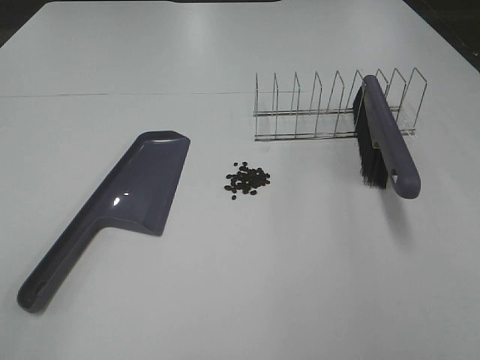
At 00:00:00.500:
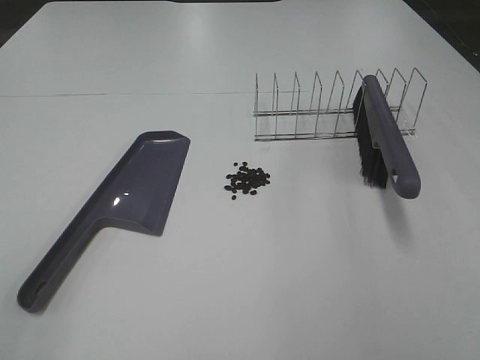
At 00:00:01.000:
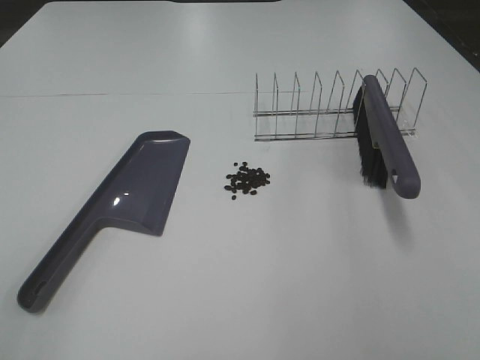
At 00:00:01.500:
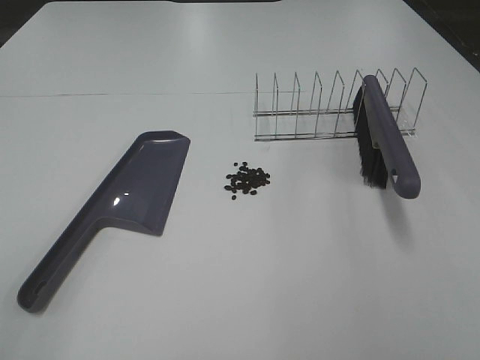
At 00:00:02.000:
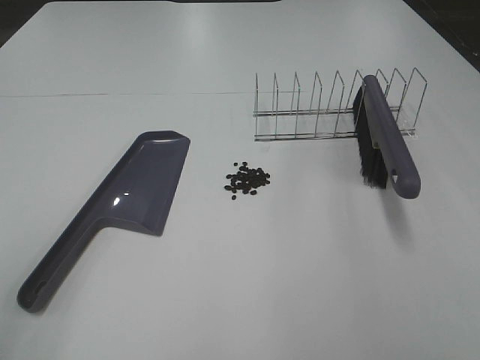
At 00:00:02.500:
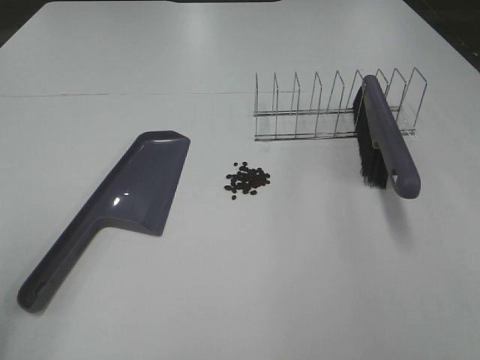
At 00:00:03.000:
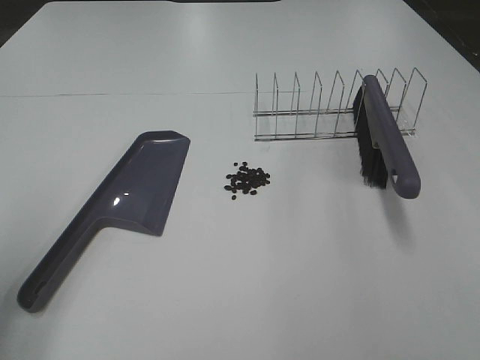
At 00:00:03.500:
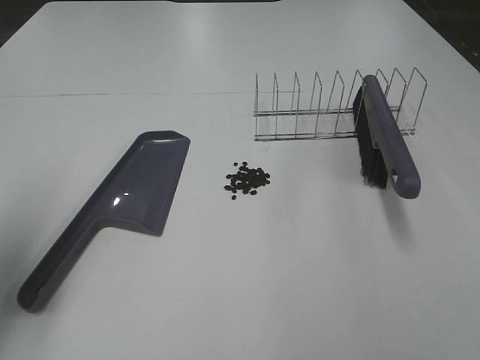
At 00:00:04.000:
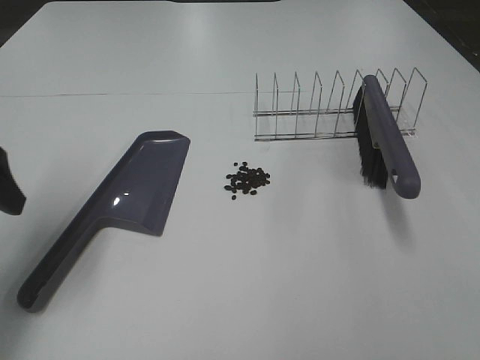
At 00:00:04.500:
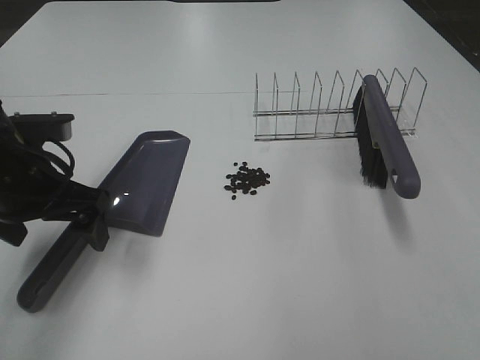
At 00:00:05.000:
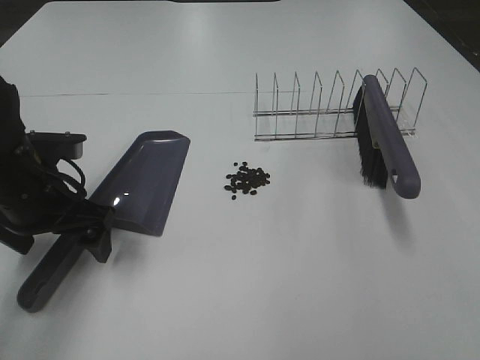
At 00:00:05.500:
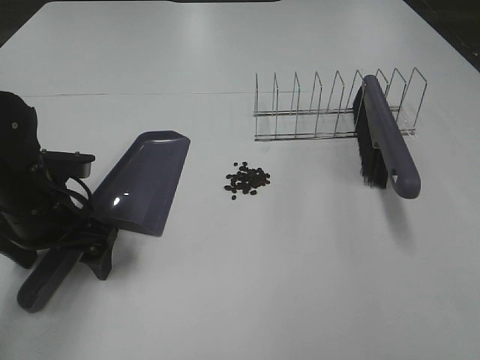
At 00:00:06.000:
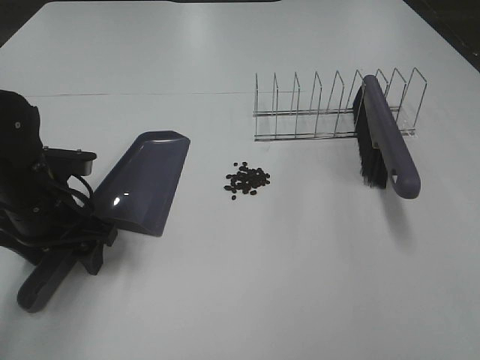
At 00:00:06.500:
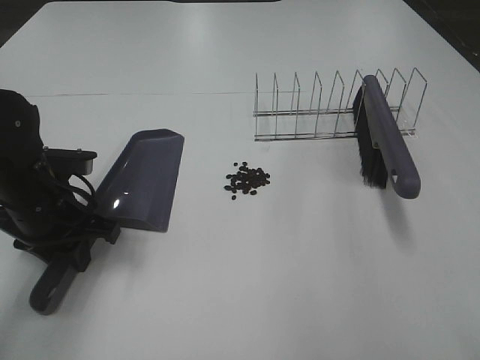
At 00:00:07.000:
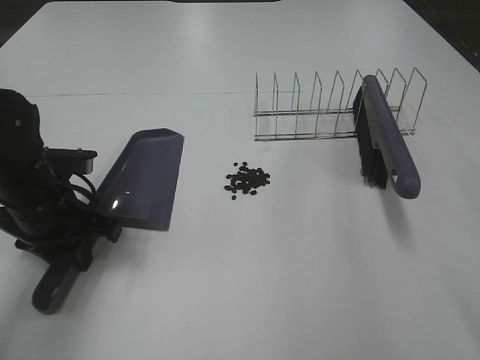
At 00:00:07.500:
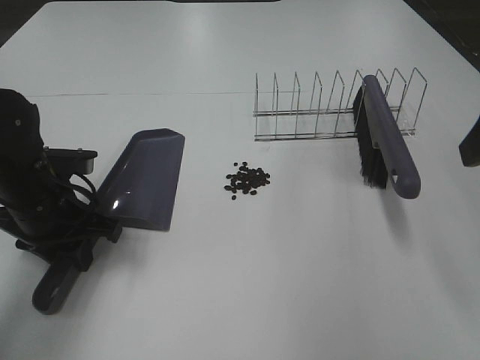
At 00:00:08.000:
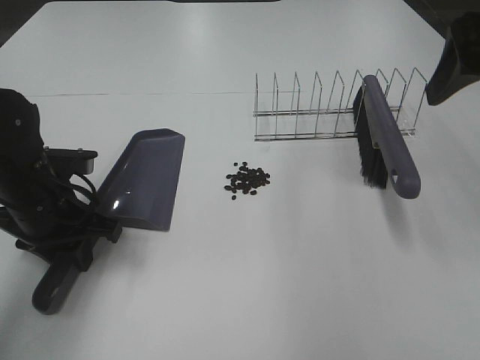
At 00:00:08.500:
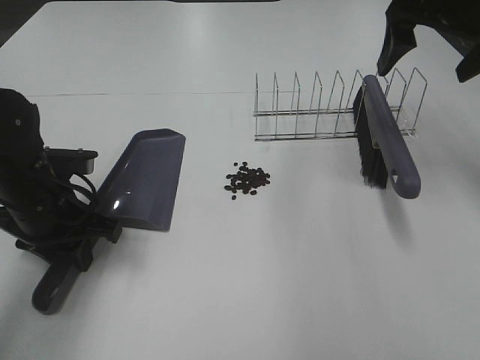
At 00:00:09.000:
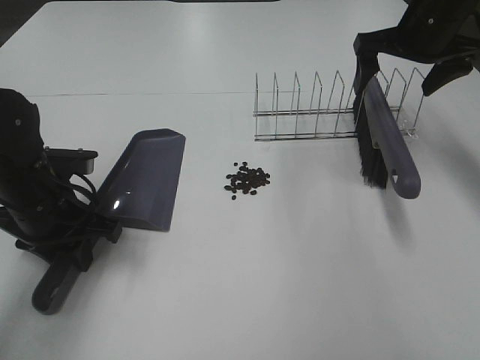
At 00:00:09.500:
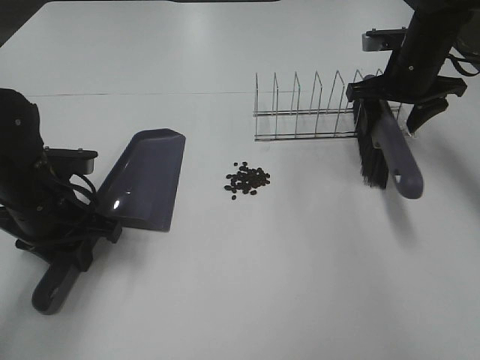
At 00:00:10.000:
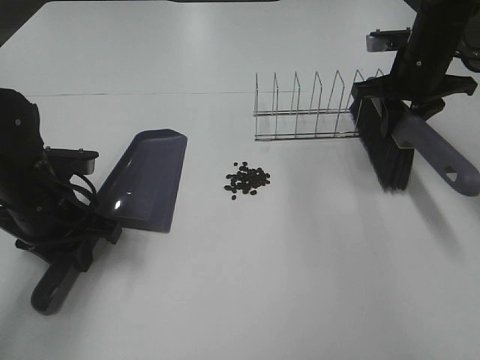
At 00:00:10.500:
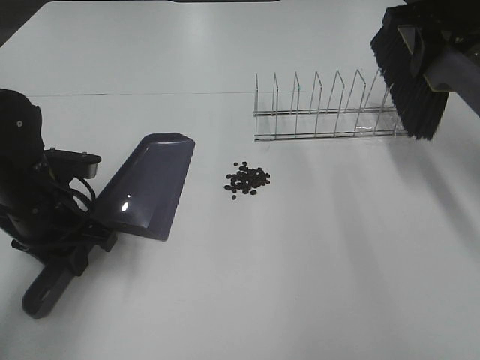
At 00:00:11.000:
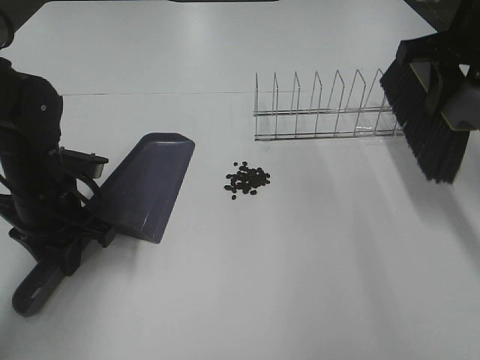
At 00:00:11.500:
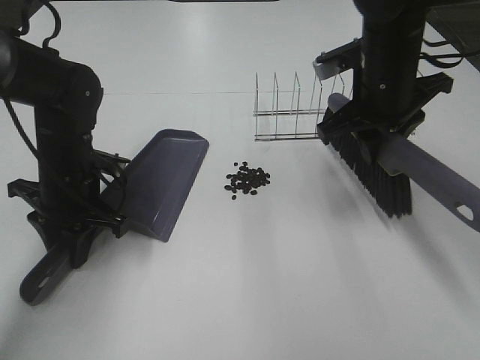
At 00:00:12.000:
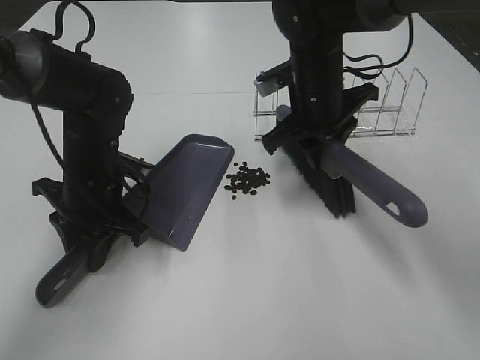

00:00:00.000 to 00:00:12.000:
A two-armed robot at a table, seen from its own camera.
Task of the whole recording: Sweep Coffee Bean.
Step, 00:00:00.000 to 00:00:06.500: Left hand: grab the dustpan.
Step, 00:00:06.500 to 00:00:09.500: Right hand:grab the broom.
00:00:02.000 to 00:00:04.000: The left gripper shifts some 20 cm forward.
00:00:04.000 to 00:00:06.000: The left gripper is displaced downward and to the right by roughly 15 cm, and closes up.
00:00:06.000 to 00:00:08.000: The right gripper goes approximately 25 cm forward. The left gripper closes its fingers.
00:00:08.000 to 00:00:10.000: The right gripper is displaced forward and downward by roughly 20 cm, and closes.
00:00:10.000 to 00:00:12.000: The left gripper moves to the right, some 5 cm. The right gripper is displaced to the left by approximately 15 cm.

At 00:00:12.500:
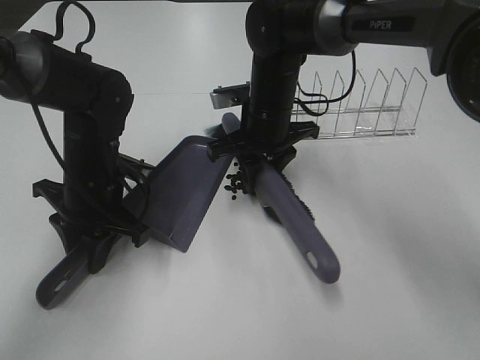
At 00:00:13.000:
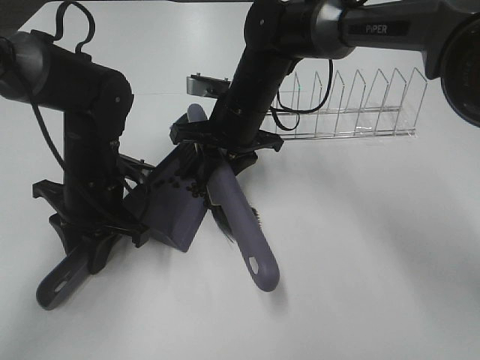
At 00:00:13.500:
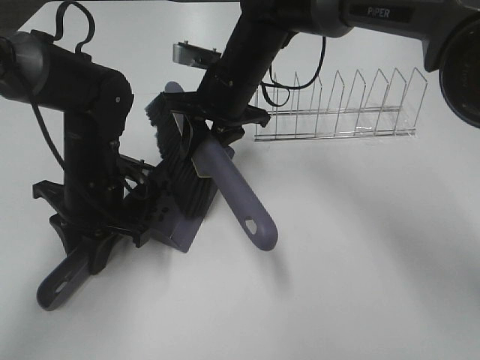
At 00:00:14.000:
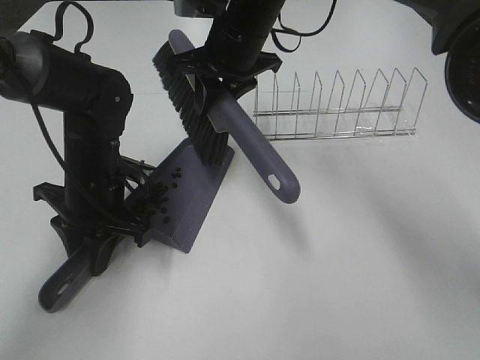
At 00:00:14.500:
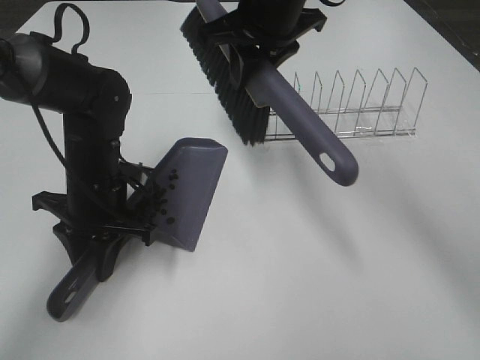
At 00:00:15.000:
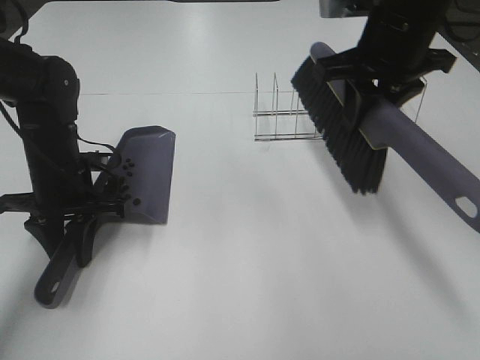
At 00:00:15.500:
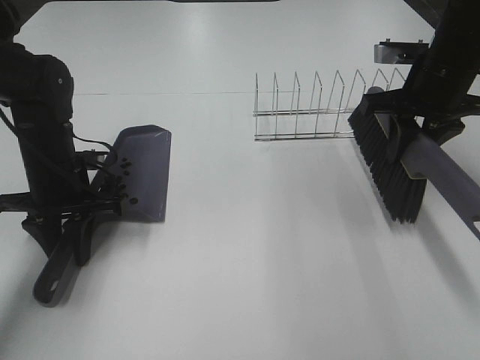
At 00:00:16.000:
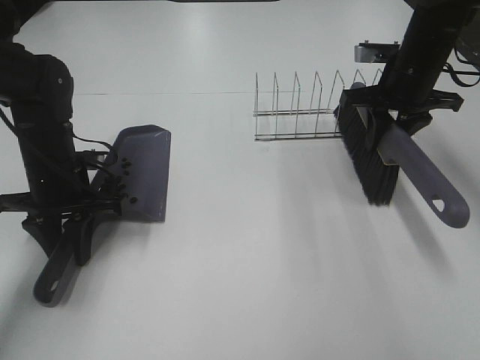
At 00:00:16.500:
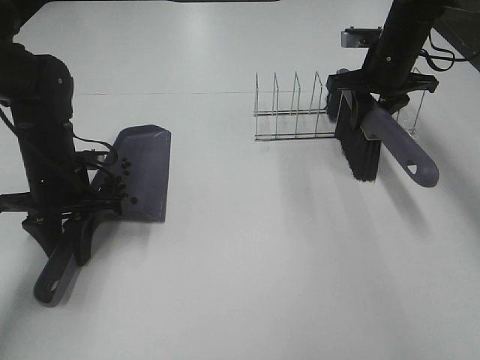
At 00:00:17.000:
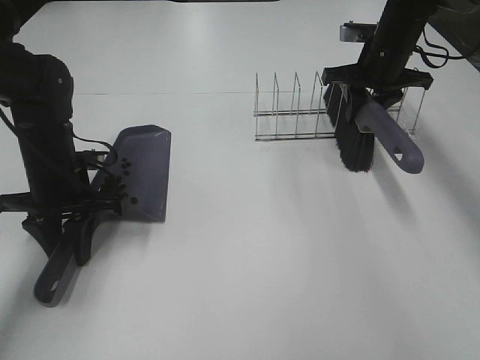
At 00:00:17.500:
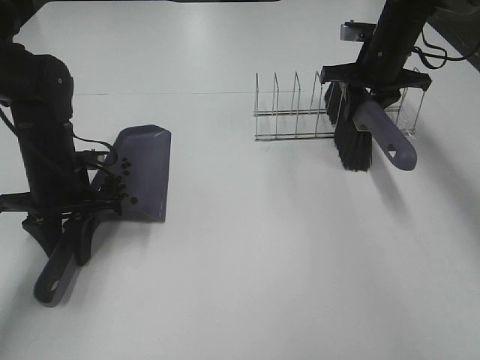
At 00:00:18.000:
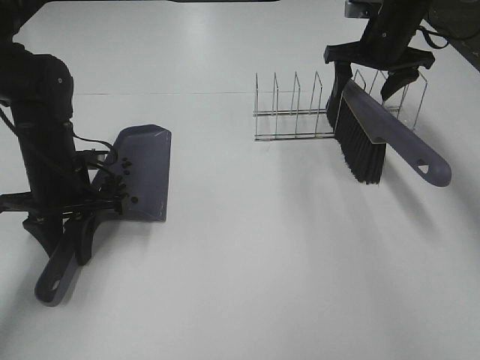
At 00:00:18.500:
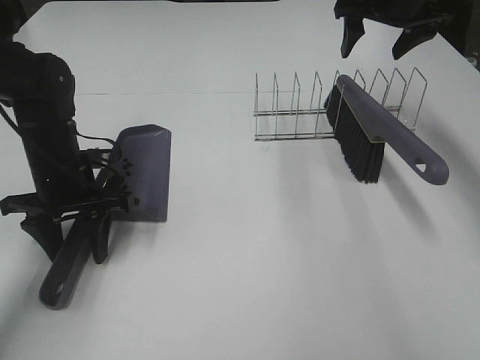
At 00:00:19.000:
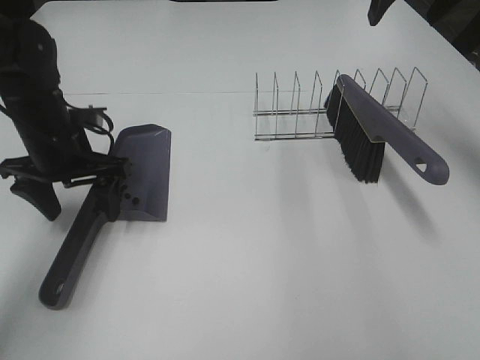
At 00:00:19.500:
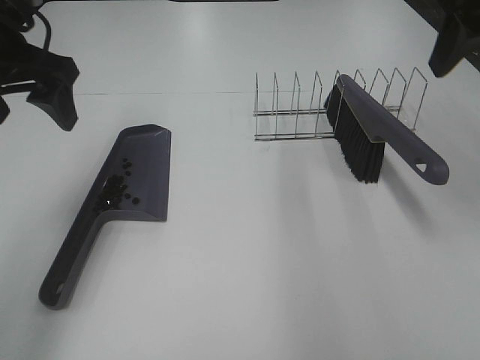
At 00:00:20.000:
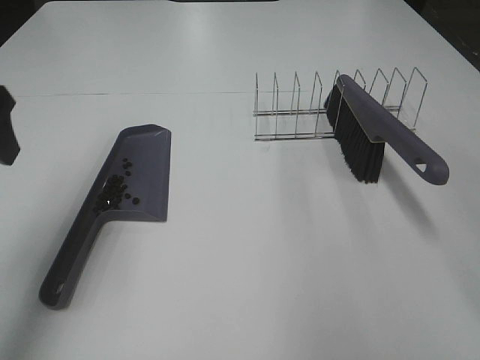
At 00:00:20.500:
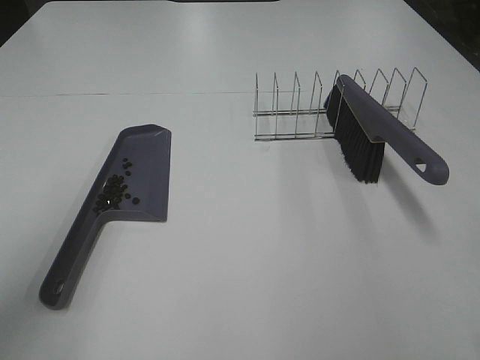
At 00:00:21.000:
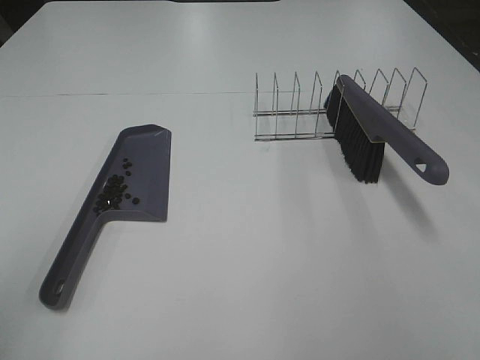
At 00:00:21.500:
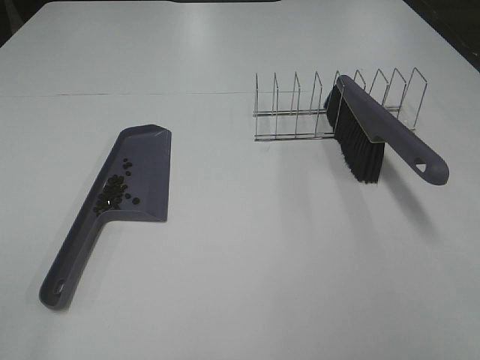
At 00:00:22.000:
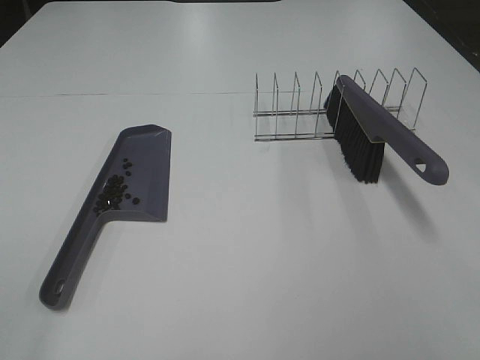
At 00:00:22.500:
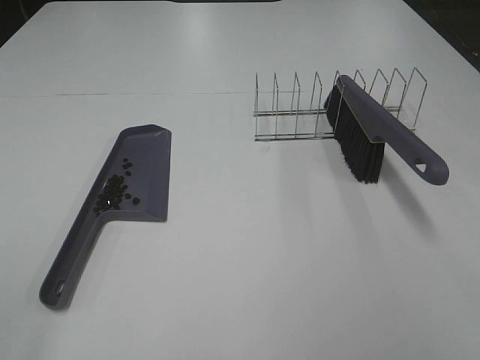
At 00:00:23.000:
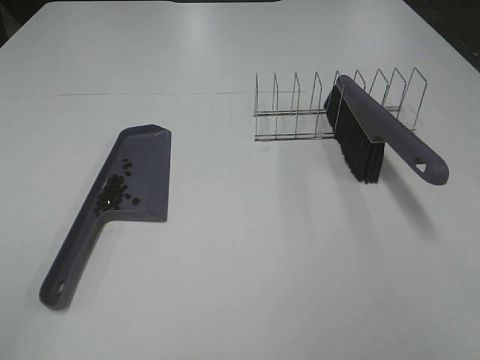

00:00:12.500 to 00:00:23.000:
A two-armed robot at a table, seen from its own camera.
Task of the whole recording: Sweep Coffee Bean.
Step, 00:00:14.000 to 00:00:17.500: Right hand:place the broom on the rack.
00:00:12.500 to 00:00:14.500: The right gripper goes approximately 15 cm upward.
00:00:14.500 to 00:00:16.500: The right gripper goes approximately 25 cm to the right, downward and forward; the left gripper travels to the left by roughly 5 cm.
00:00:16.500 to 00:00:19.000: The left gripper travels upward by about 5 cm, and opens its fingers. Meanwhile the right gripper travels upward by roughly 15 cm, and opens.
00:00:19.000 to 00:00:21.000: The left gripper goes approximately 30 cm backward and upward; the right gripper is displaced backward by some 40 cm.
